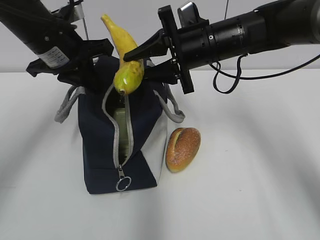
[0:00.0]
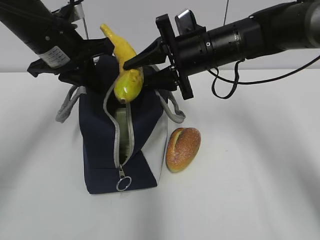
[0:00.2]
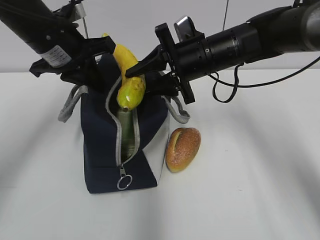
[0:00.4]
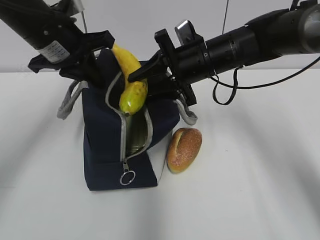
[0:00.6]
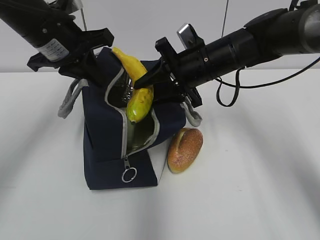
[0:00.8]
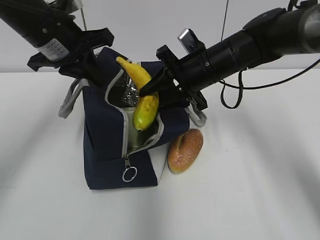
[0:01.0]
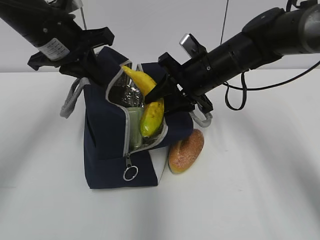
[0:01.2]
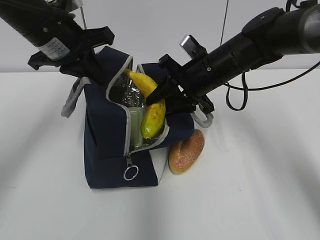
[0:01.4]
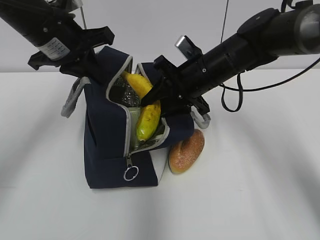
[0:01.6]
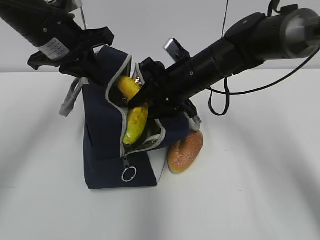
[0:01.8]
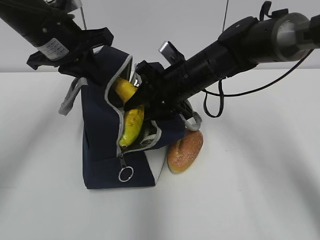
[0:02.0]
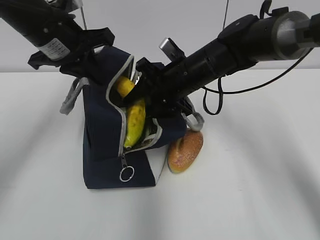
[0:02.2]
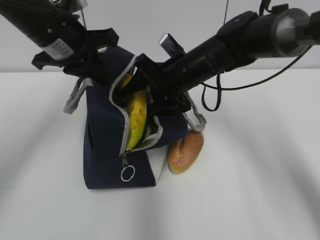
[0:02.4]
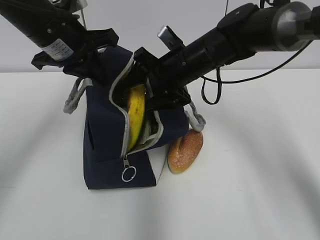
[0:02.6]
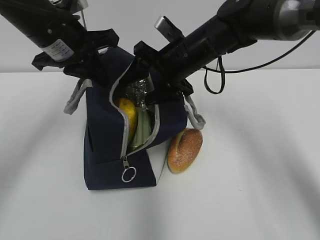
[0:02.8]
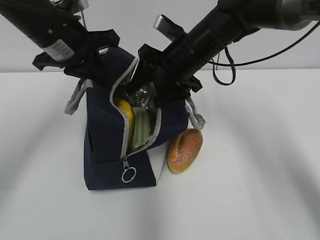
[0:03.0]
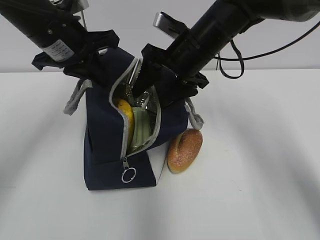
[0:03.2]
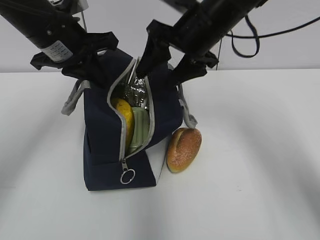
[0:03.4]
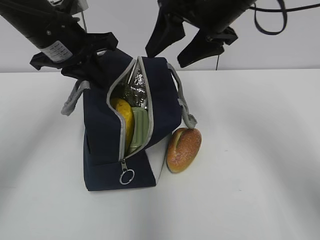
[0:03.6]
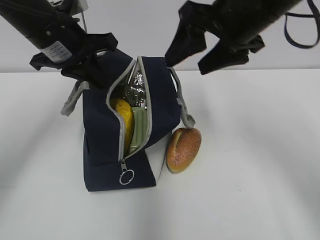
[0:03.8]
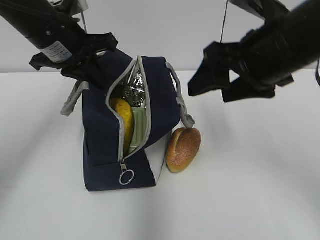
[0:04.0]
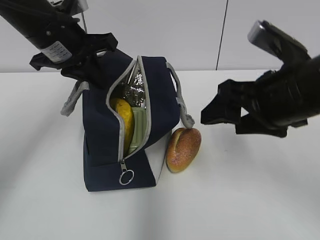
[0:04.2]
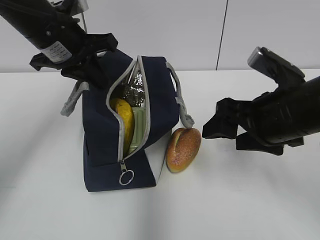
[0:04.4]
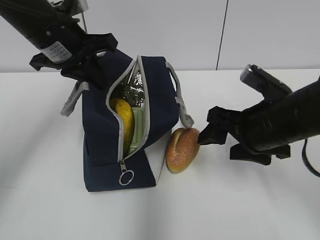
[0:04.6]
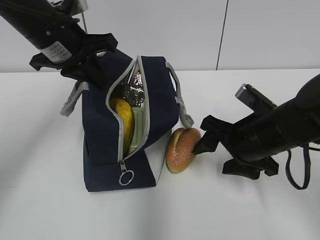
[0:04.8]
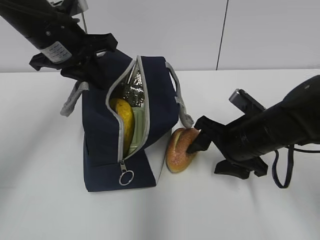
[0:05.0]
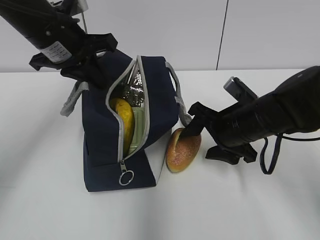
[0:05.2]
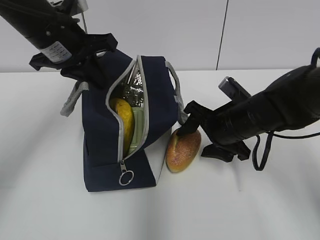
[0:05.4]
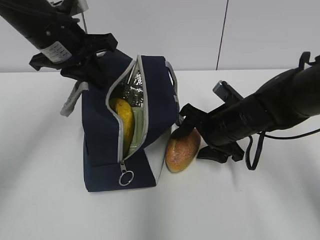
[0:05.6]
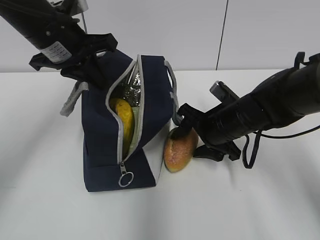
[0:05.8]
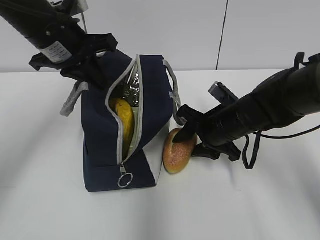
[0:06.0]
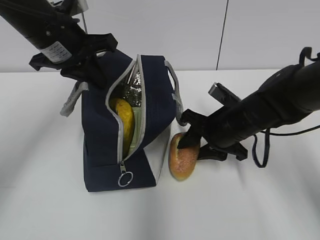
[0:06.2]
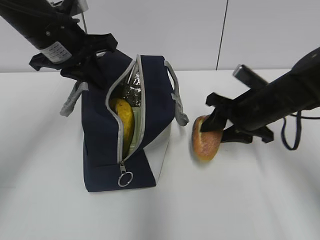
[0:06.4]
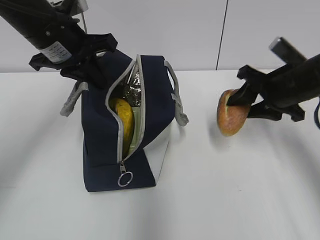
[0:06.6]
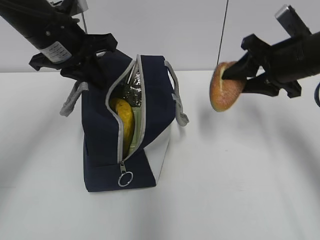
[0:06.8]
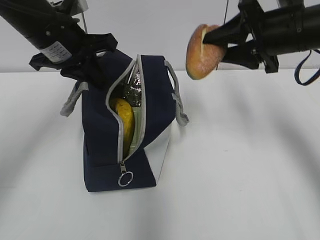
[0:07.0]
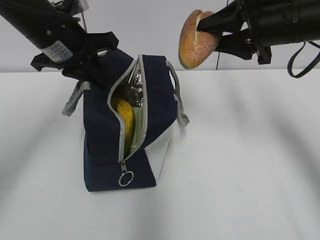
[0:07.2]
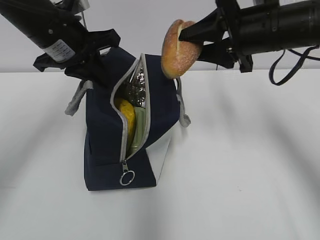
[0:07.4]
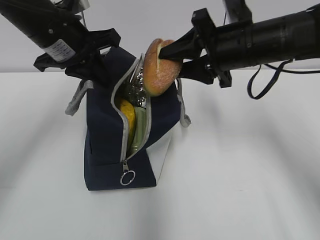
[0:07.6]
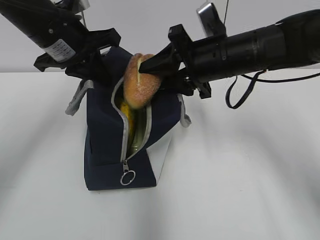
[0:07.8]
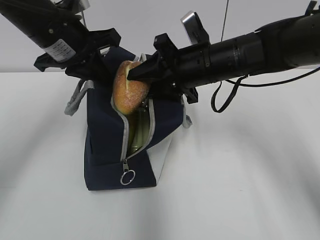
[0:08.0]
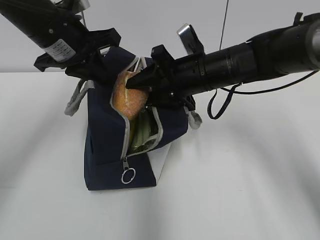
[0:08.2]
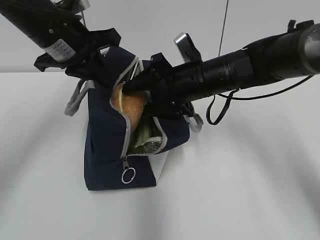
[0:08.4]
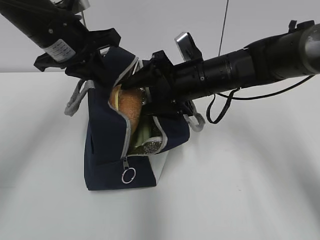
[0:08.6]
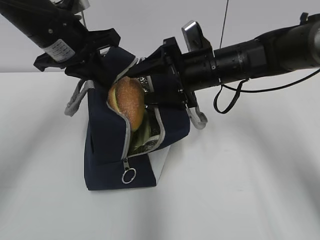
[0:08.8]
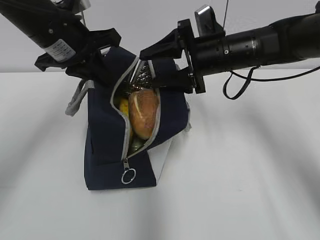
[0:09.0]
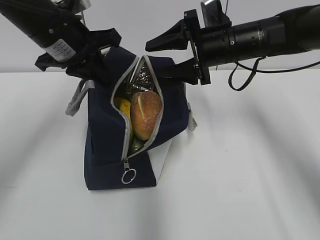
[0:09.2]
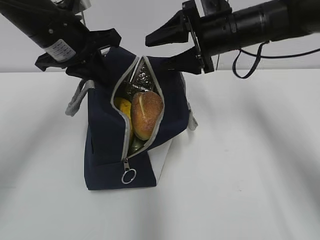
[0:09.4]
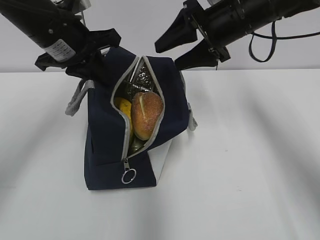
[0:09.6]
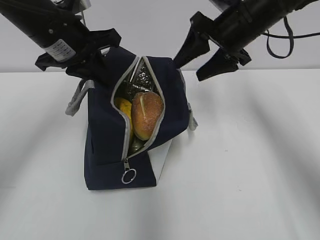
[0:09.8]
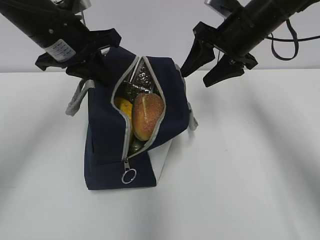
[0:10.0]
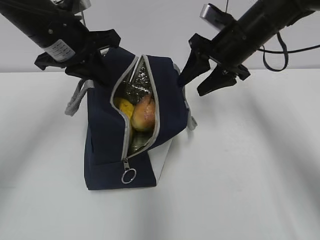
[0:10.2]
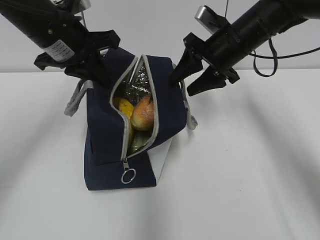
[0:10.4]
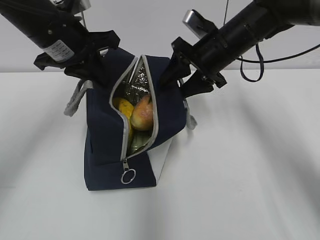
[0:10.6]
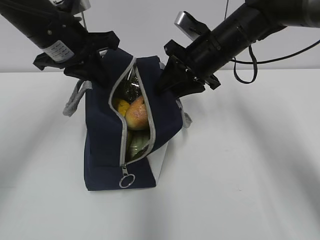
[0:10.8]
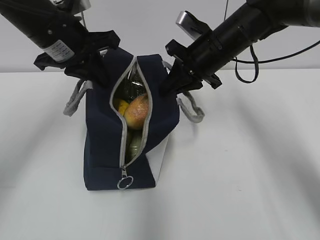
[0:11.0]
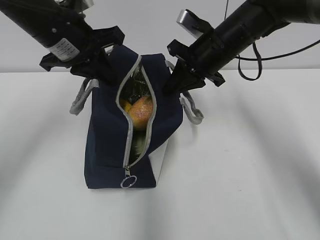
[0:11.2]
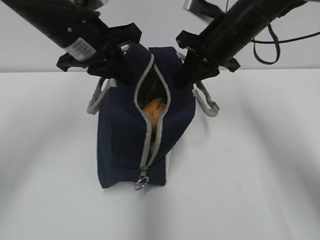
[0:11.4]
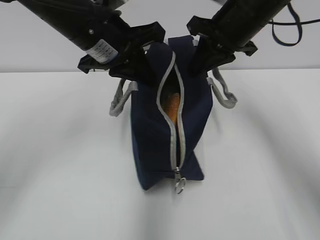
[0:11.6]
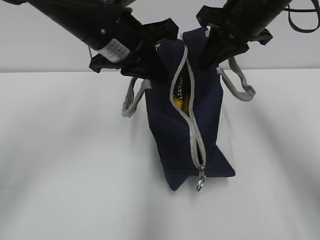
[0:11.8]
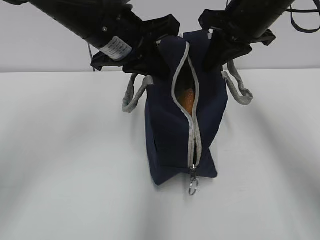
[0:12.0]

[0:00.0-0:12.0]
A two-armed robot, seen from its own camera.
Step, 0:00.0 to 0:02.6: Place it into the bag with your right hand.
Step, 0:02.8 to 0:05.8: Grab the bread with your right hand.
Step, 0:09.2 to 0:10.8: Grab the lunch bag with your right hand.
0:00.0 to 0:01.6: The right gripper goes about 5 cm downward.
0:01.6 to 0:03.0: The right gripper opens up.
0:03.0 to 0:04.4: The right gripper goes some 20 cm backward and to the right.
0:04.4 to 0:06.0: The right gripper travels downward and forward by approximately 15 cm.
0:06.0 to 0:07.6: The right gripper is displaced upward by about 15 cm.
0:07.6 to 0:09.0: The right gripper opens.
0:10.4 to 0:12.0: The right gripper shifts about 10 cm upward, and closes. The left gripper is displaced to the right by some 10 cm.

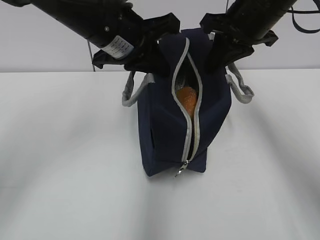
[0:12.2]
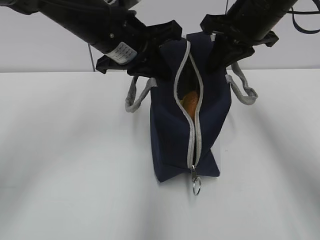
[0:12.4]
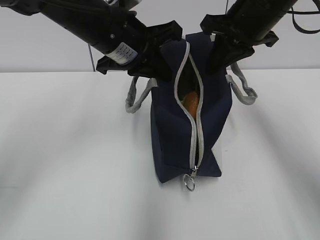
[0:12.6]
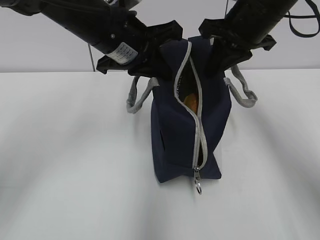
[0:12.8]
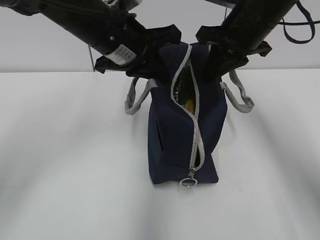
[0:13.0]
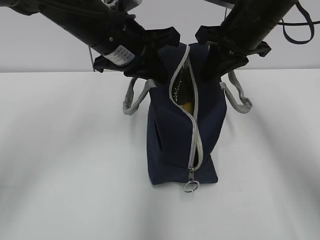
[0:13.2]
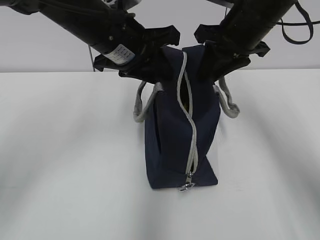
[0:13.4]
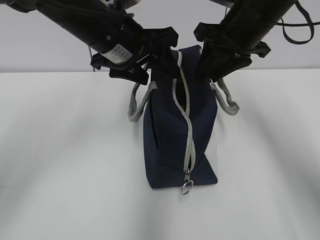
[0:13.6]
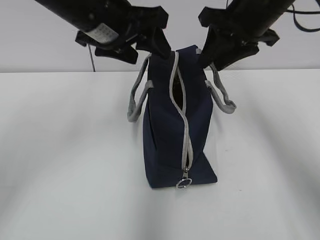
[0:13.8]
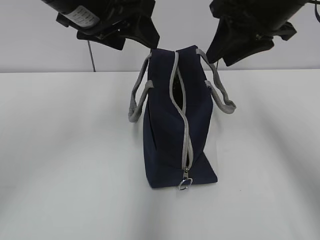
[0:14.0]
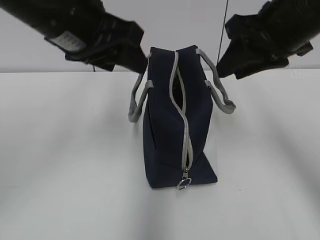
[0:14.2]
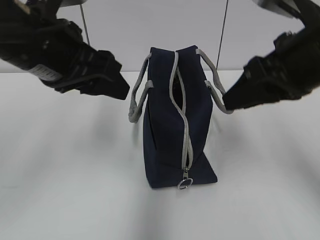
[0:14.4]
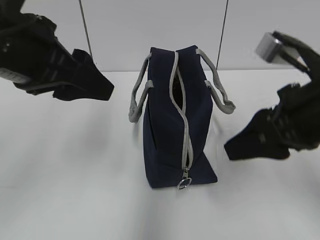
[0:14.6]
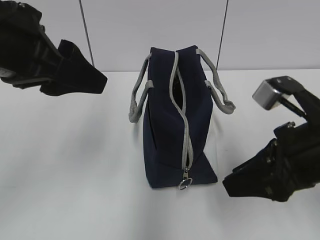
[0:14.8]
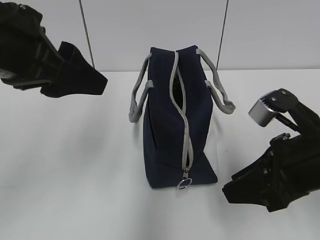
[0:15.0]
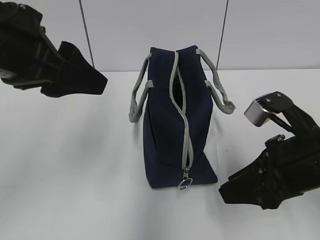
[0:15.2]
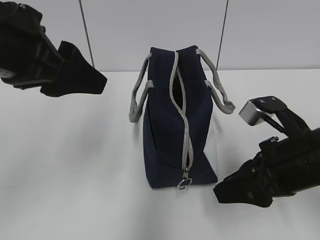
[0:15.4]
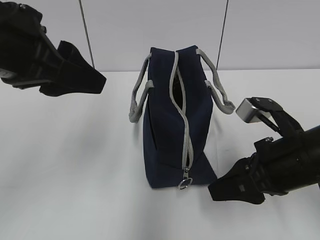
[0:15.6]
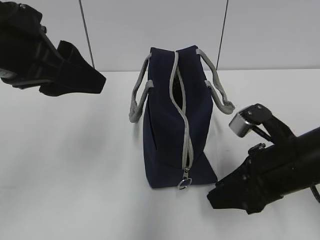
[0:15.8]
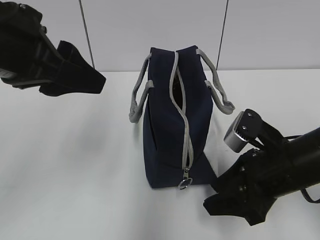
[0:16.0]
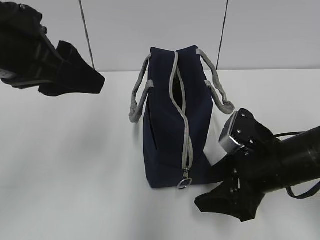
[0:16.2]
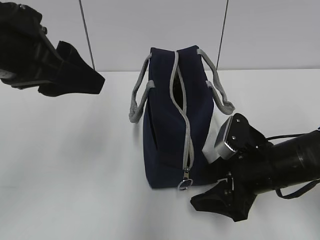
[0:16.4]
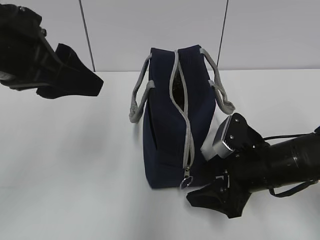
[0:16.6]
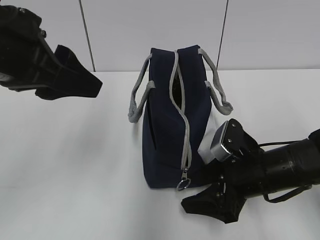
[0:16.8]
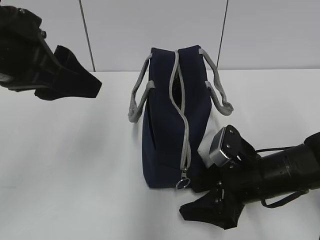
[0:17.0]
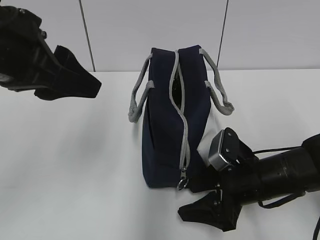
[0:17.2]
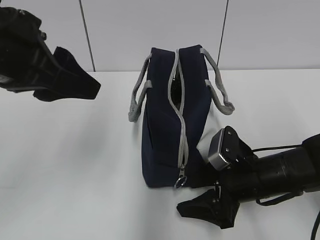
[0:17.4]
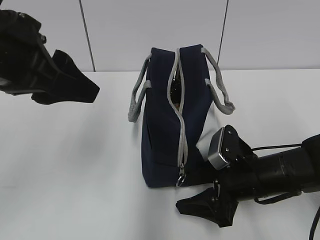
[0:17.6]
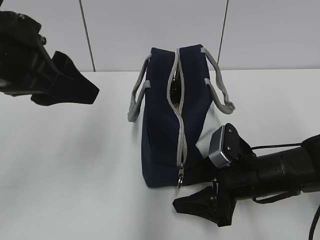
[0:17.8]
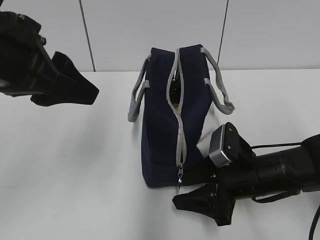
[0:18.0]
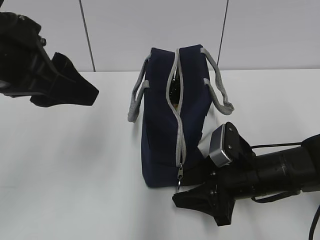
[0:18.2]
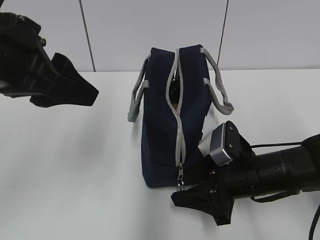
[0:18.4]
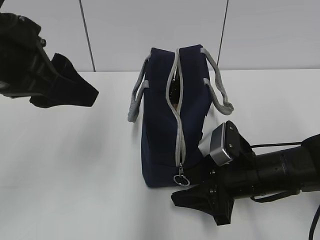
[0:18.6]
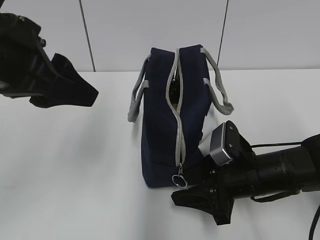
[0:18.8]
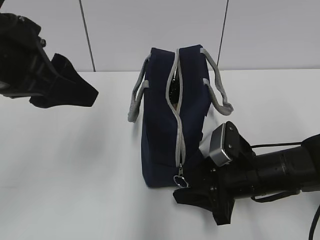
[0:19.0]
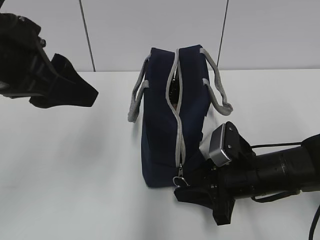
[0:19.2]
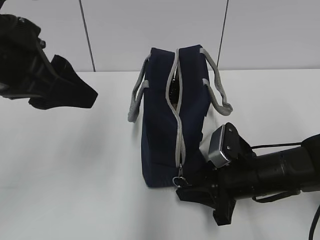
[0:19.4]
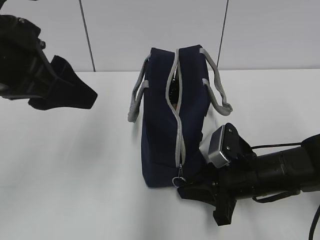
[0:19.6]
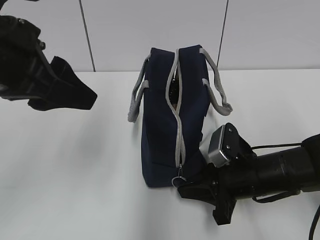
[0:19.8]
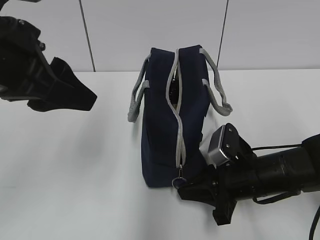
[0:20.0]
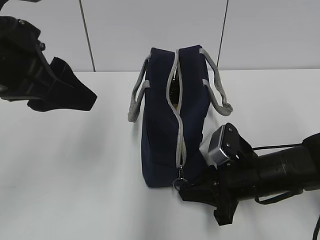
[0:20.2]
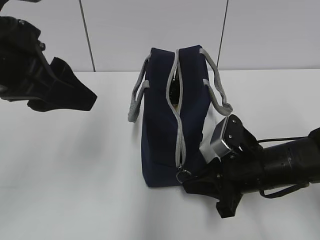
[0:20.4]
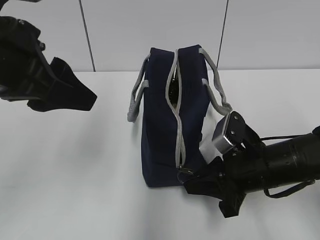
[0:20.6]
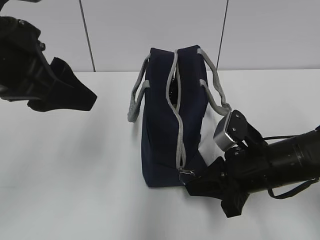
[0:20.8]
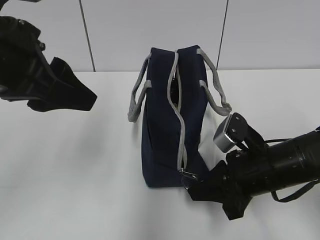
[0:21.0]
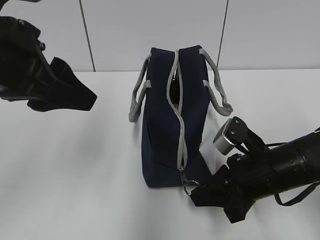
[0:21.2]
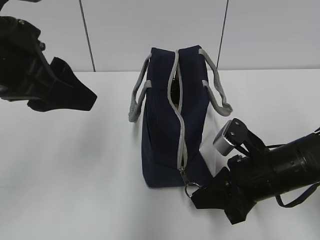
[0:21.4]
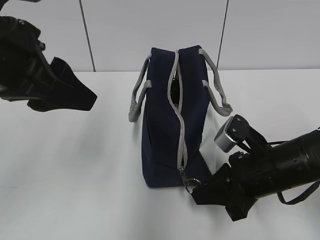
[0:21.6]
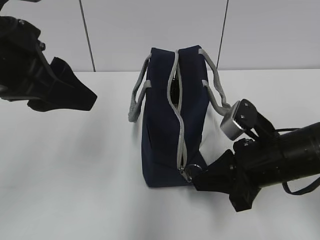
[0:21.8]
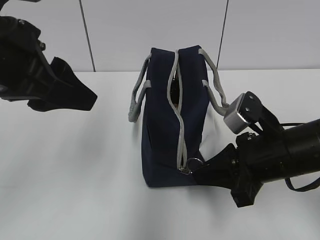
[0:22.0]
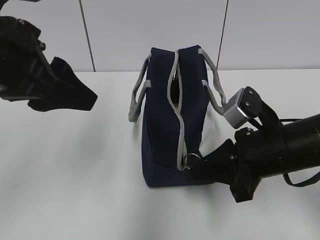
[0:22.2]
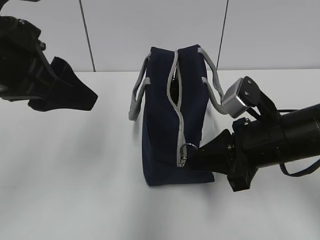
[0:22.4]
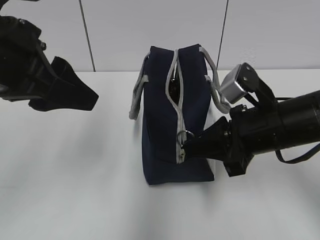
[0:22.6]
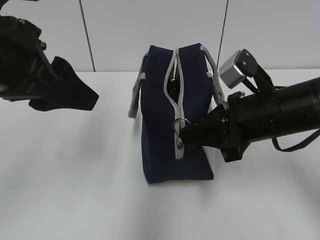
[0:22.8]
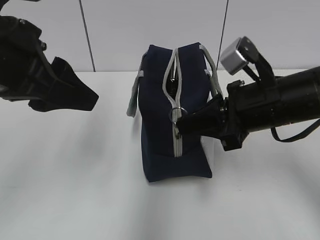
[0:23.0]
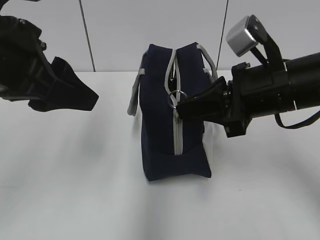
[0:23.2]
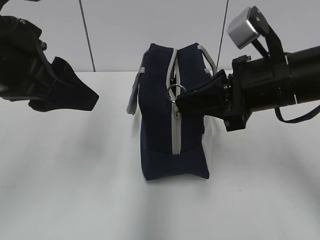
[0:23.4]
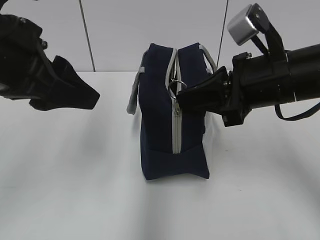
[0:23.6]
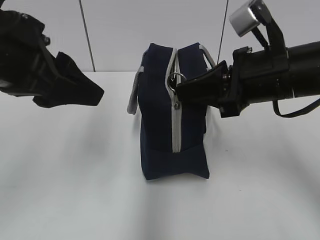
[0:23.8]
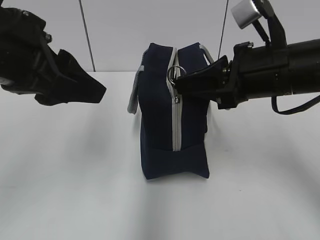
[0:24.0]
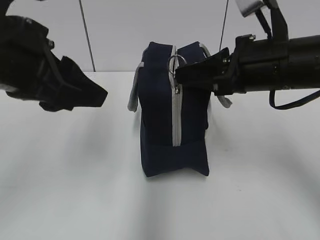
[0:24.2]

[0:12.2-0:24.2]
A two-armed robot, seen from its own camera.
Step, 0:12.2 to 0:13.4: Move the lunch bag to the right.
0:12.2 to 0:13.8: The left gripper opens; the right gripper opens its fingers.
0:13.8 to 0:15.2: The left gripper is displaced backward and to the left by about 15 cm; the right gripper travels backward and downward by roughly 20 cm.
0:15.2 to 0:16.6: The right gripper is displaced downward and forward by roughly 10 cm, and opens up.
0:16.6 to 0:18.2: There are only small adjustments of the grippers.
0:18.2 to 0:19.8: The right gripper closes its fingers.
0:19.8 to 0:21.2: There are only small adjustments of the grippers.
0:21.2 to 0:22.6: The right gripper moves upward, about 5 cm.
0:22.6 to 0:24.2: The right gripper goes about 5 cm upward.
